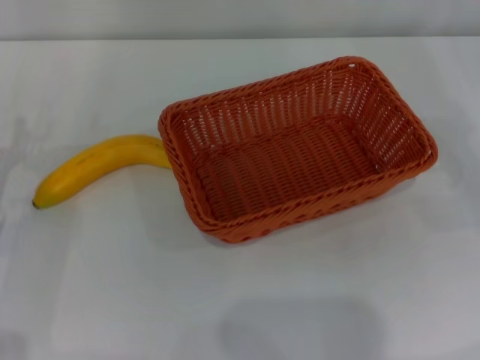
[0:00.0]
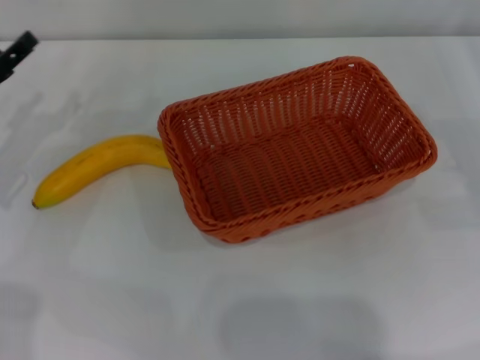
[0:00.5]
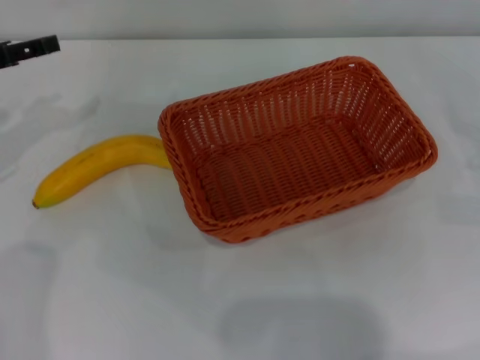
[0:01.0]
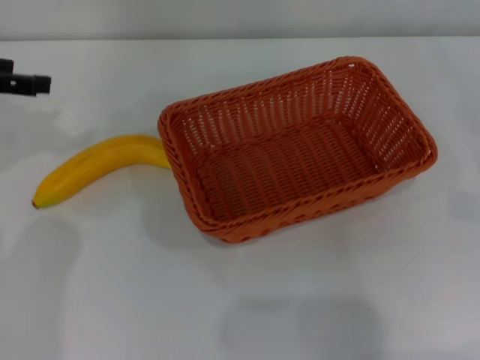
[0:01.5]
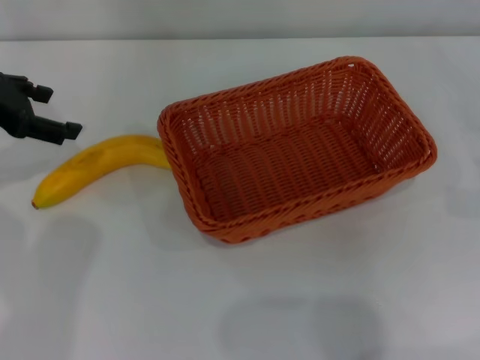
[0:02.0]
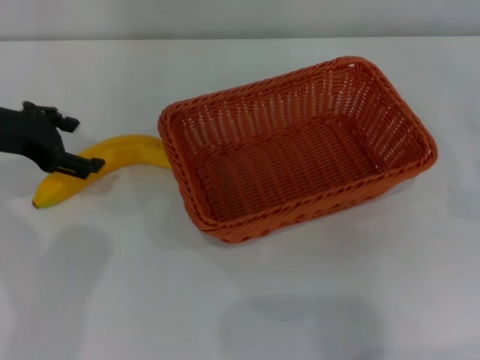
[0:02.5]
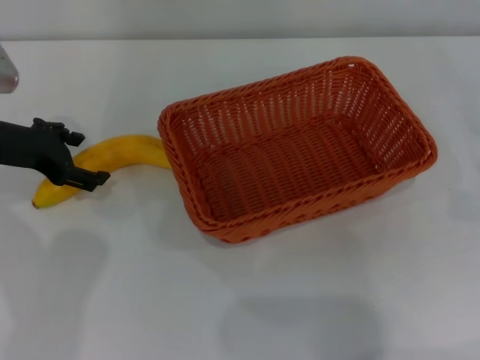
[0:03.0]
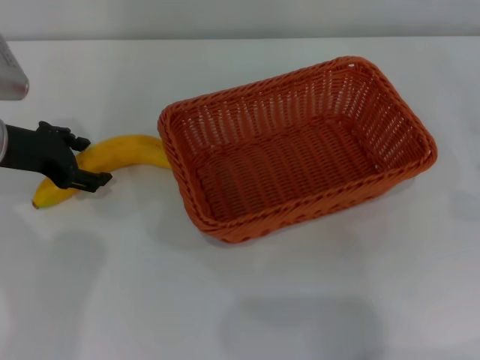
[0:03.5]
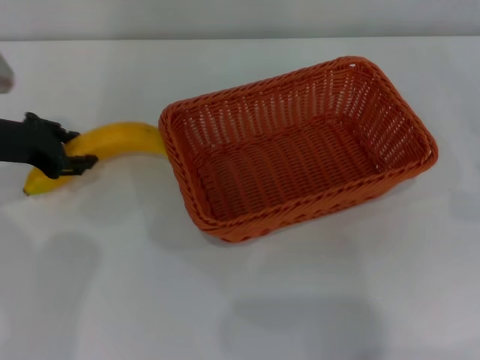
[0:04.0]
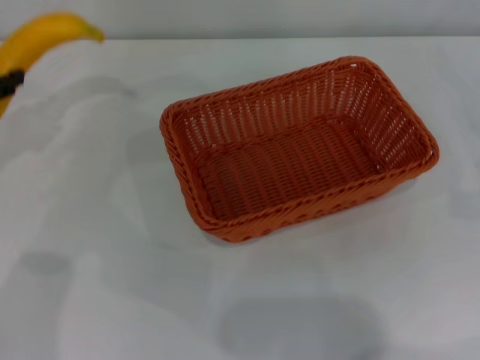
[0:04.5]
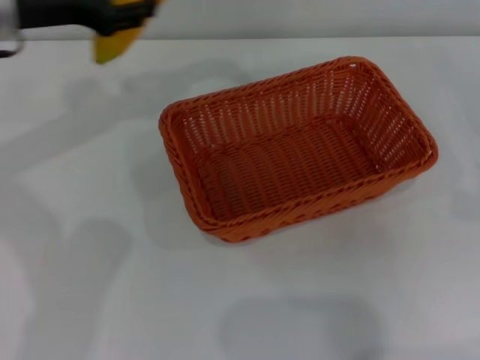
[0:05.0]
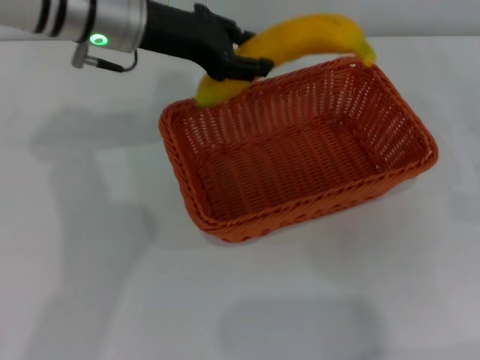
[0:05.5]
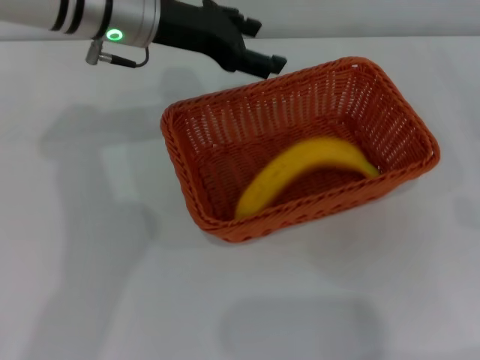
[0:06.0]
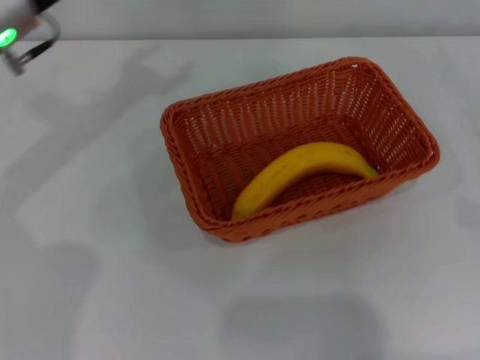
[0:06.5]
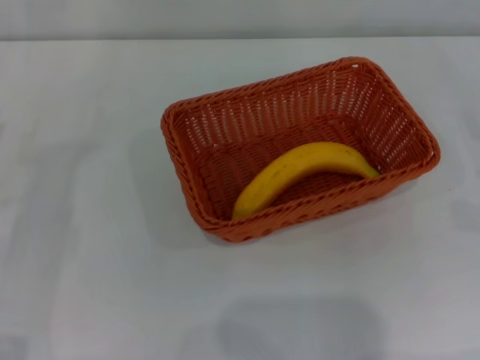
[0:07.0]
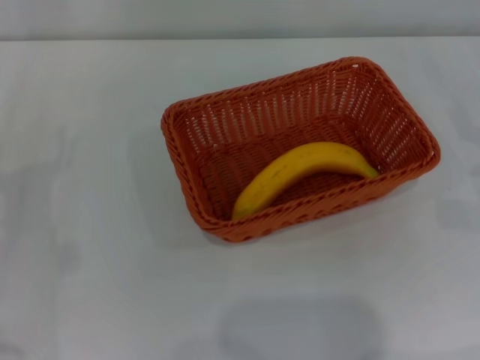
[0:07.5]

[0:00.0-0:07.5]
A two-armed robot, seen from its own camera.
Step, 0:00.0 to 0:04.0: Pick up the banana with the left gripper.
Step, 0:04.5 to 0:06.0: Place the banana into the light basket with the left gripper.
0:00.0 to 0:02.0: The left gripper travels upward and forward by roughly 15 cm, and opens.
0:02.0 to 0:04.0: The left gripper shifts about 5 cm downward, and closes up.
0:04.0 to 0:05.5: The left gripper moves to the right and upward, about 20 cm.
0:05.5 to 0:07.5: The left gripper travels to the left, downward and backward by about 30 cm, and opens up.

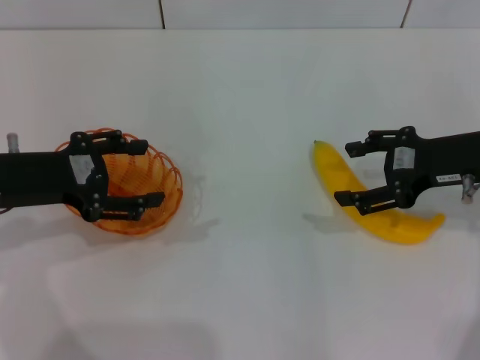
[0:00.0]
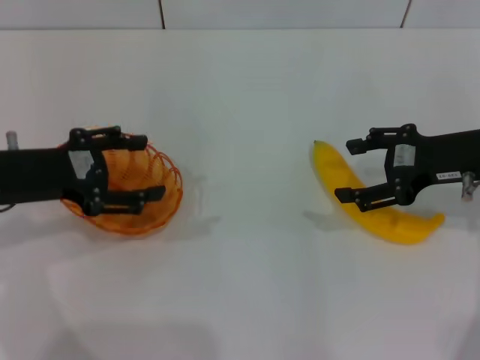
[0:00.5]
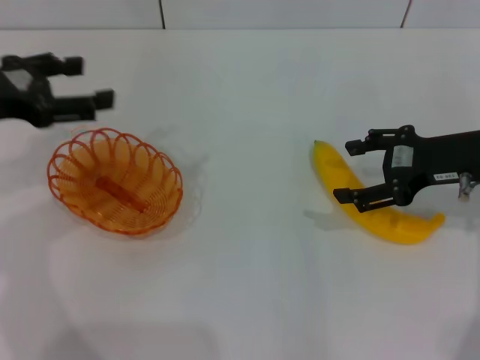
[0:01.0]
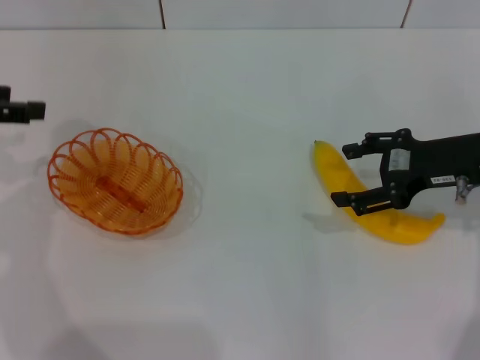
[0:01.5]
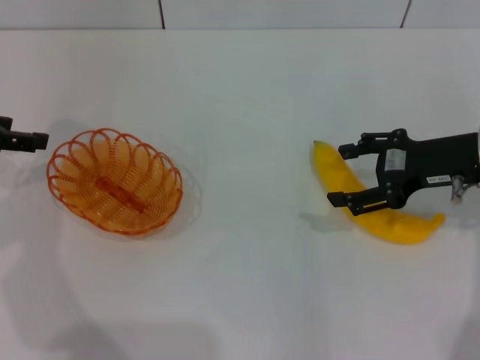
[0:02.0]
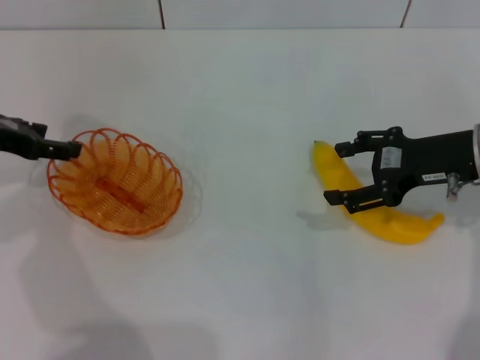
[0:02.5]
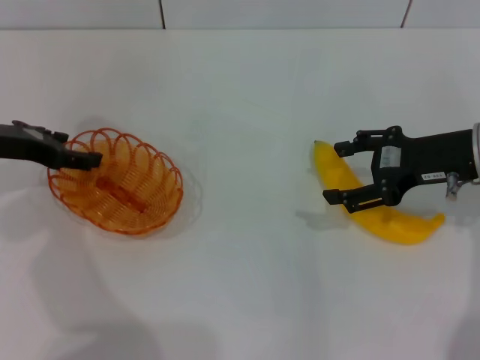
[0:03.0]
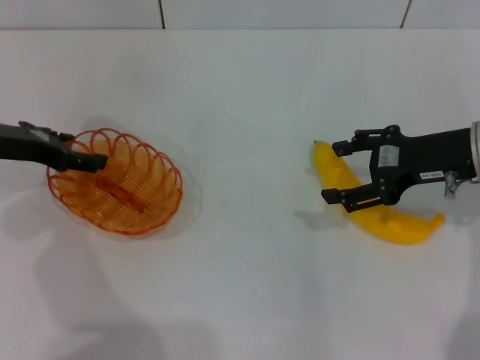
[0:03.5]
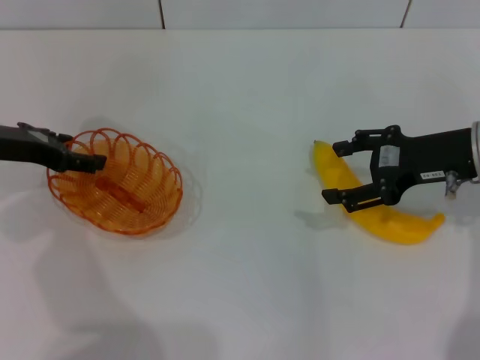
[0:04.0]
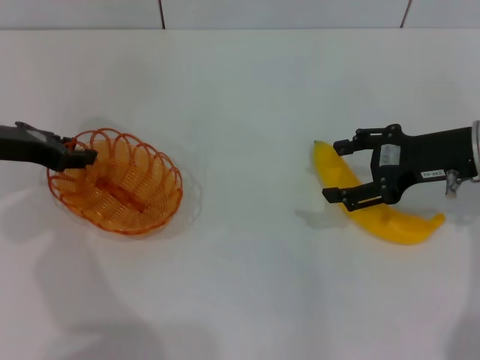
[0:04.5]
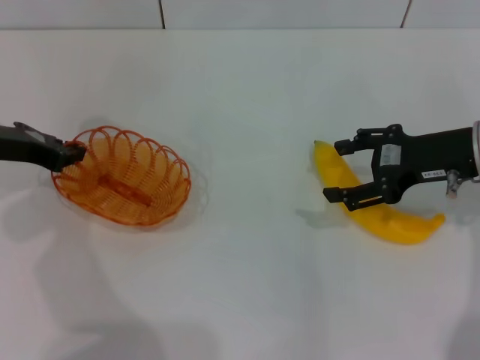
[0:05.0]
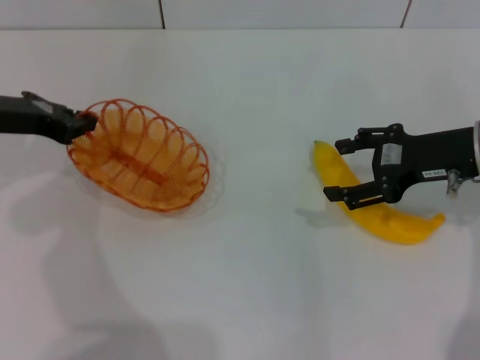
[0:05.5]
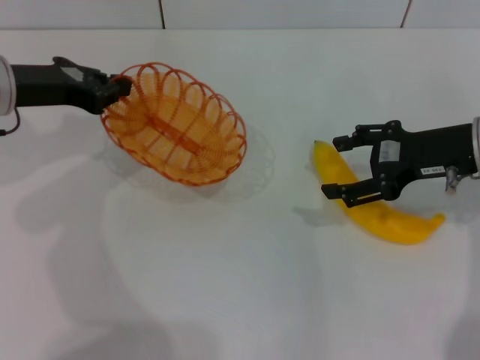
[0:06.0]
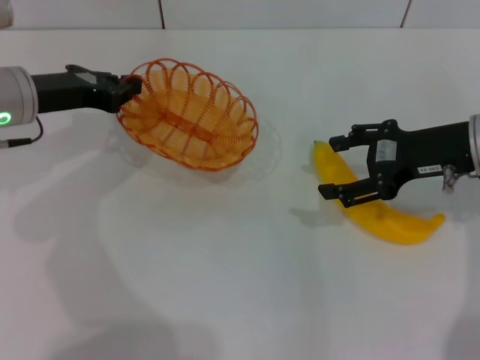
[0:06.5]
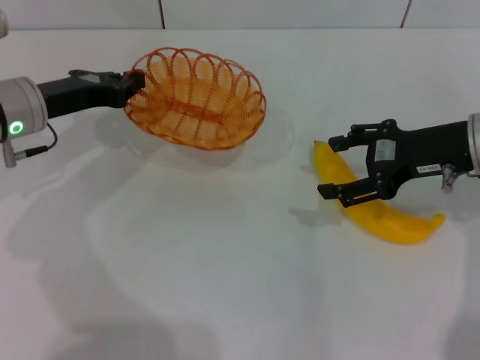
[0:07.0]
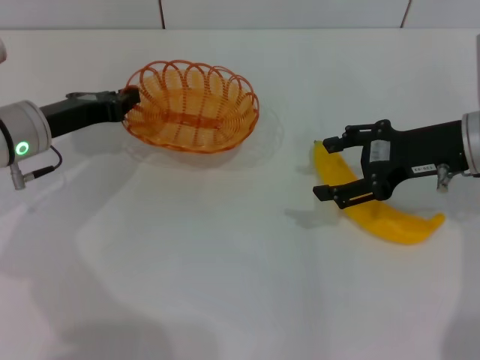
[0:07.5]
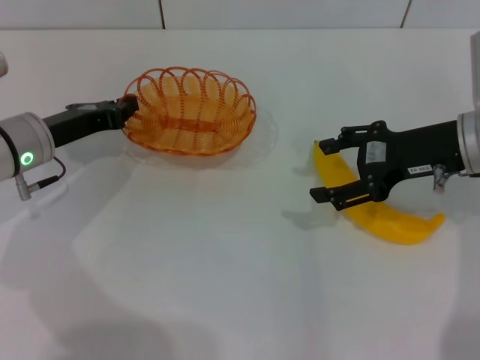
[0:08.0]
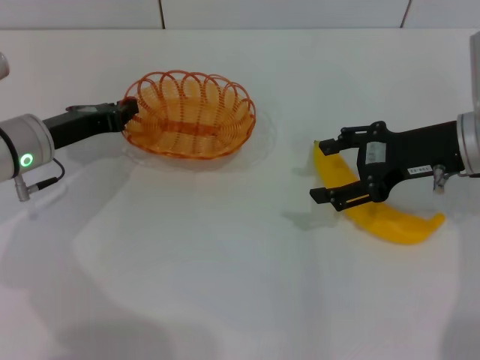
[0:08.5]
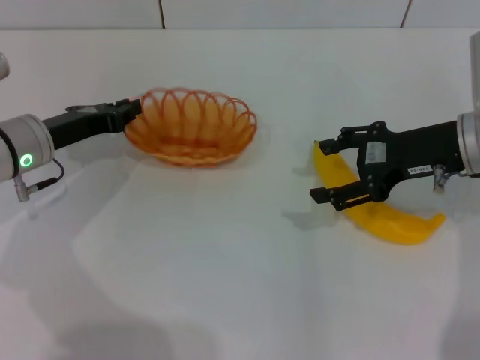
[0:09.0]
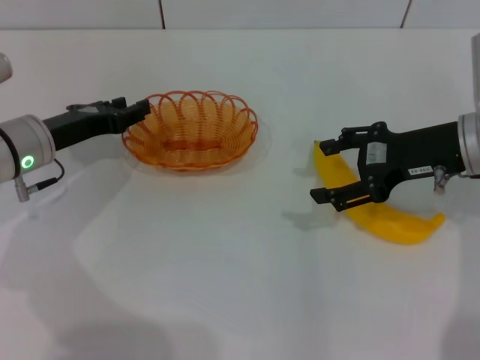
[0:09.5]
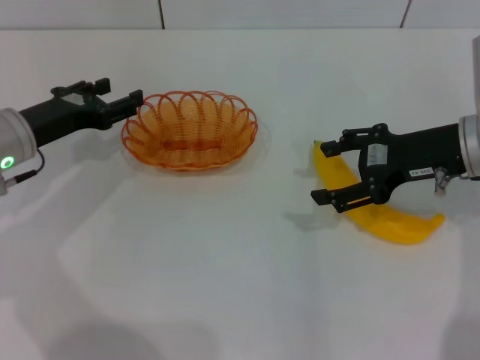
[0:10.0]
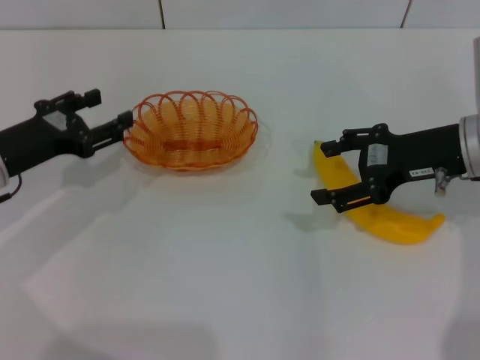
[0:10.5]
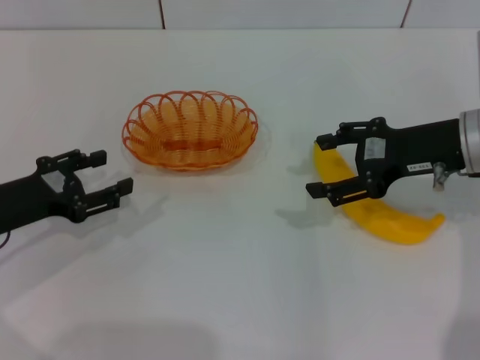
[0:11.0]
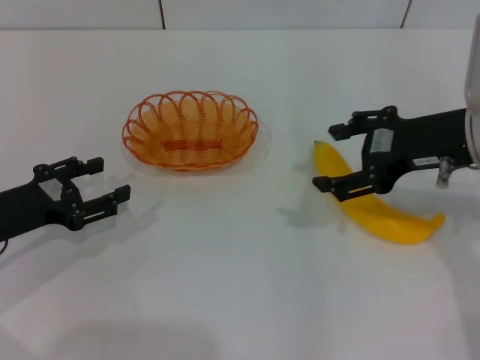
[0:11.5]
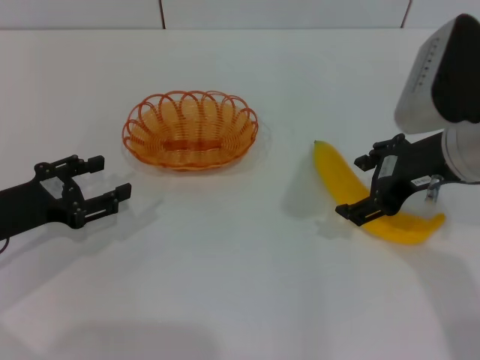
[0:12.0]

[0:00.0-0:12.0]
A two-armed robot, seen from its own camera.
Step, 0:00.0 to 0:05.5: Pick up the basket with the left gripper.
Step, 0:06.5 to 0:10.0: Place the basket in the center of view with the left gripper.
0:00.0 to 0:02.0: The left gripper heads to the left, covering about 5 cm.
0:02.0 to 0:04.0: The left gripper travels to the right by some 5 cm.
0:04.0 to 0:06.0: The left gripper closes its fingers.
0:06.0 to 0:08.0: The left gripper goes roughly 10 cm downward.
0:08.0 to 0:10.0: The left gripper opens up.
0:10.0 to 0:12.0: The right gripper ends up some 5 cm from where it was. Meanwhile the left gripper moves backward, approximately 10 cm.

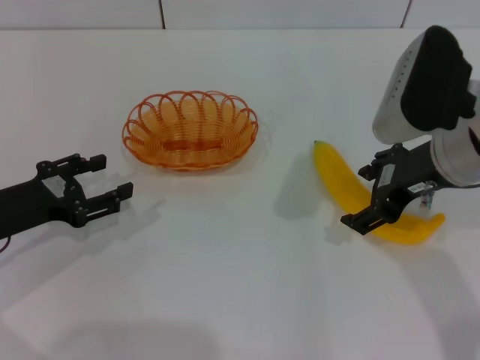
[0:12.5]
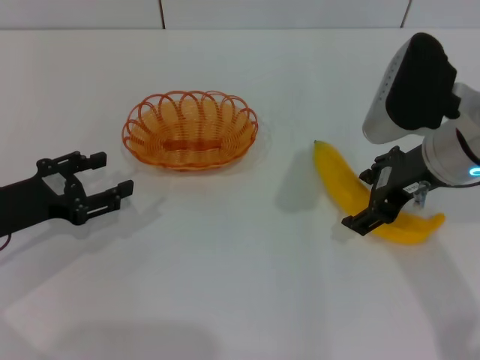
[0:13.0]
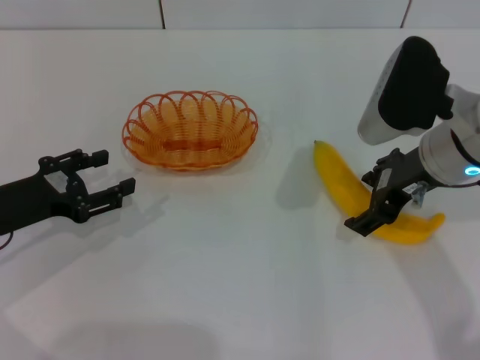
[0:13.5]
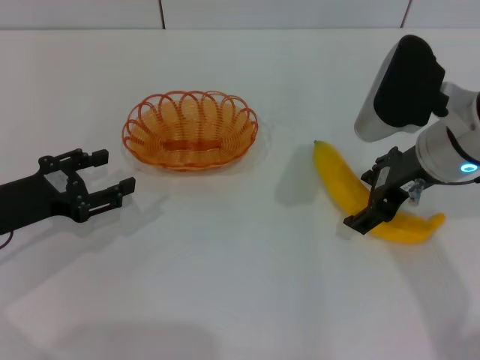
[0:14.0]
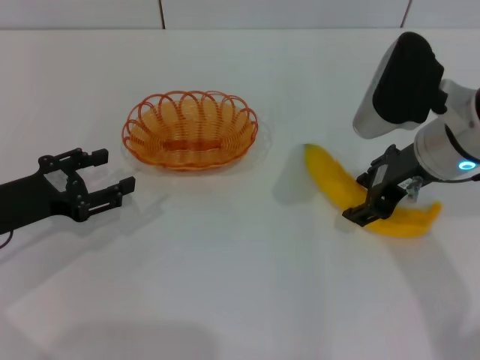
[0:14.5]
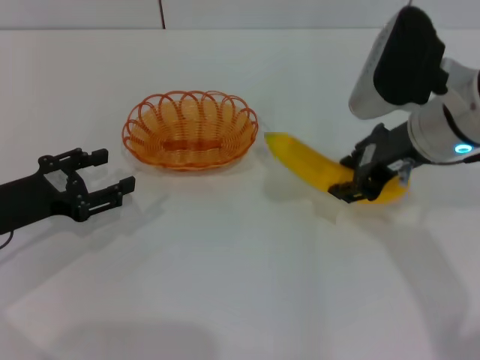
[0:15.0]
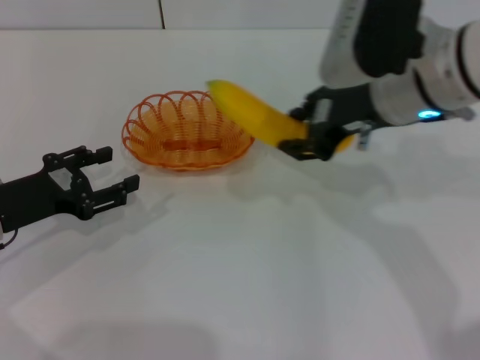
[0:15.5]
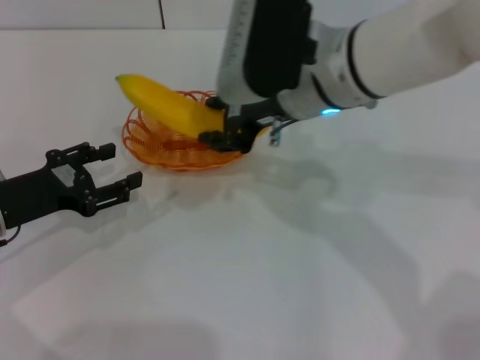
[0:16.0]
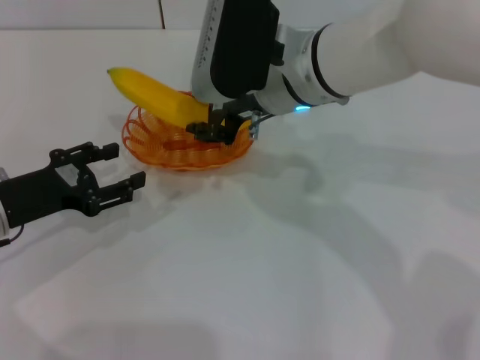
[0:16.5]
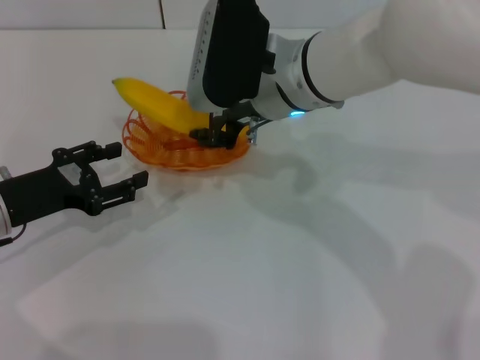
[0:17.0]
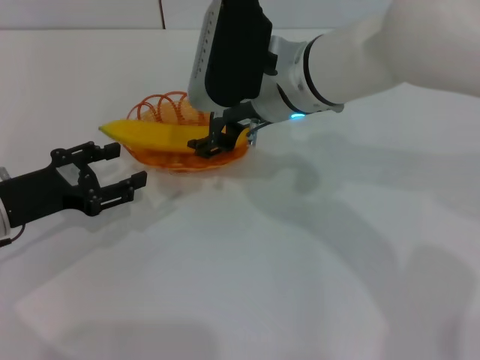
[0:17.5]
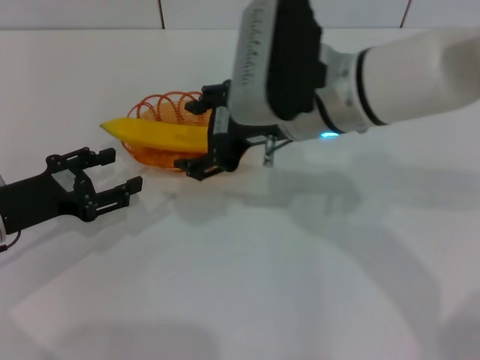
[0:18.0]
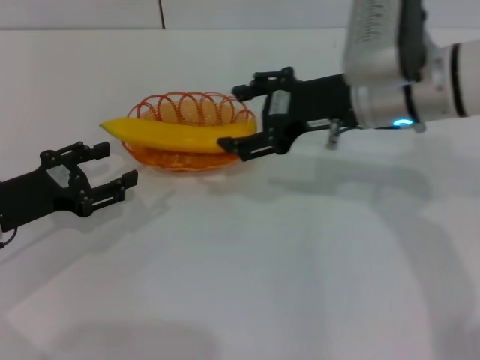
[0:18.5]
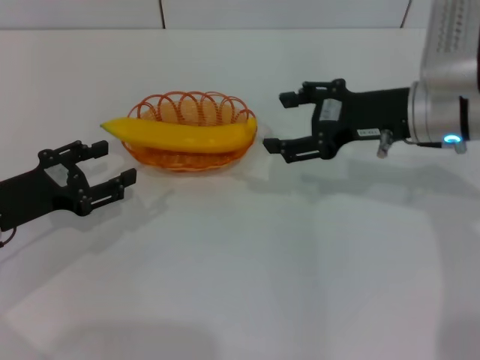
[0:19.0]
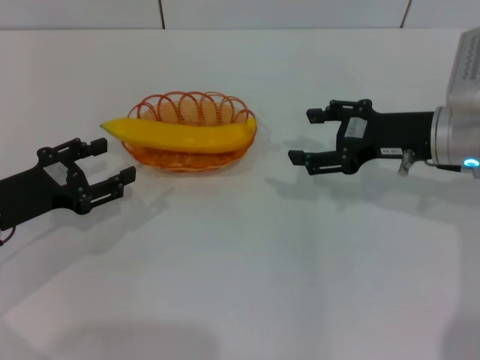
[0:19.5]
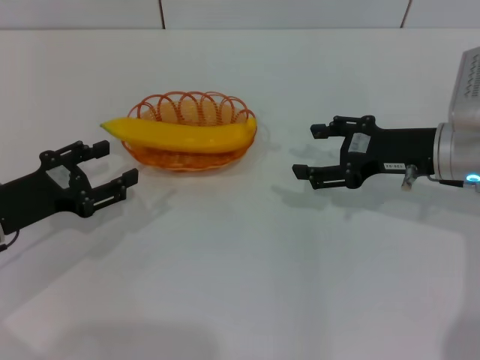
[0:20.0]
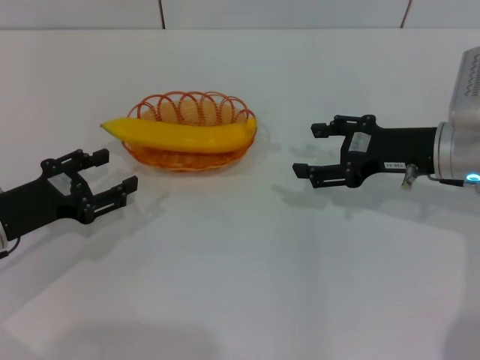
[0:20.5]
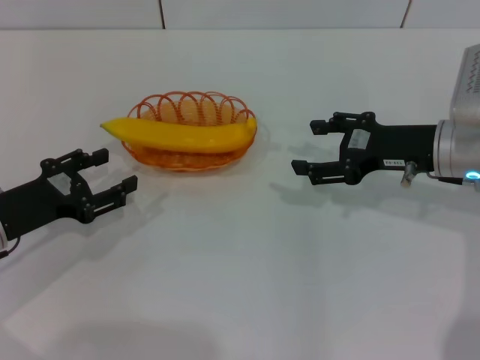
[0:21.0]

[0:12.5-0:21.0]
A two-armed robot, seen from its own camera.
Step, 0:12.5 to 0:15.0: Pick up the banana with the right gripper.
Step, 0:15.5 to 0:18.0: Place the banana into the basket with the right gripper.
0:12.5 to 0:14.5: The grippers move only a little.
0:14.5 to 0:16.5: The right gripper heads to the left, covering about 15 cm, and closes.
0:16.5 to 0:19.0: The right gripper travels to the right by about 15 cm, and opens up.
0:19.0 to 0:21.0: The right gripper ends up roughly 5 cm from where it was.
